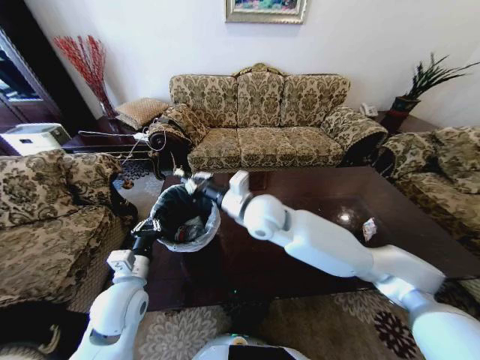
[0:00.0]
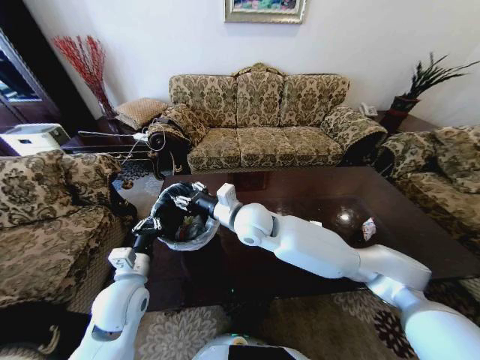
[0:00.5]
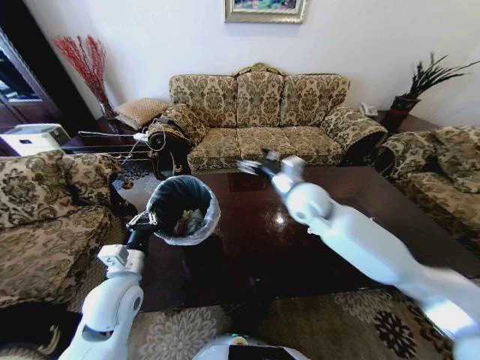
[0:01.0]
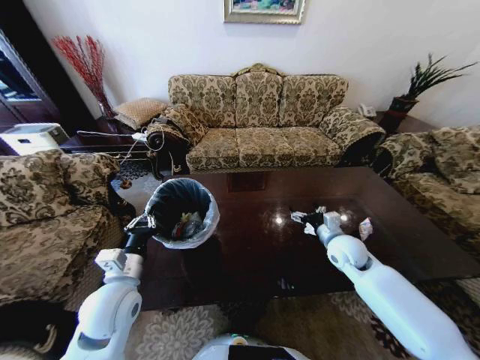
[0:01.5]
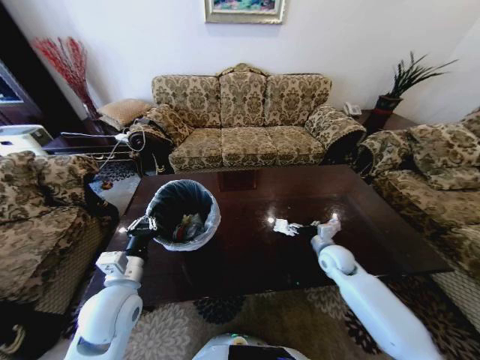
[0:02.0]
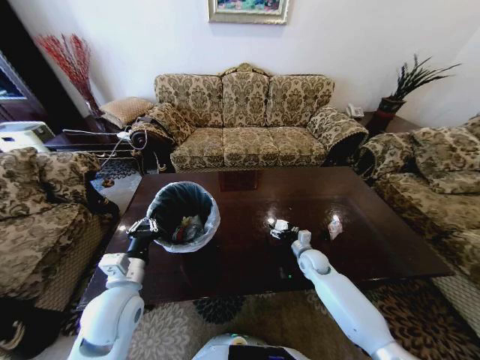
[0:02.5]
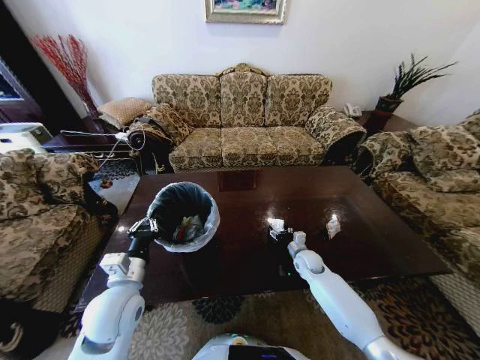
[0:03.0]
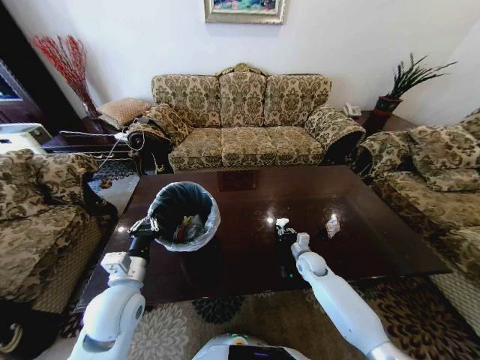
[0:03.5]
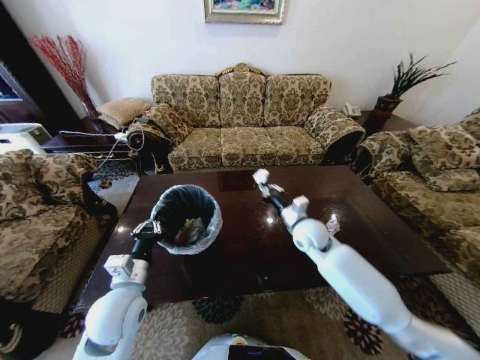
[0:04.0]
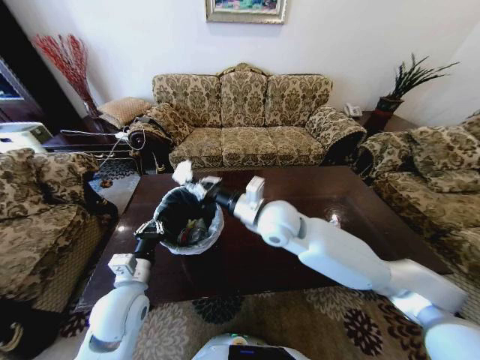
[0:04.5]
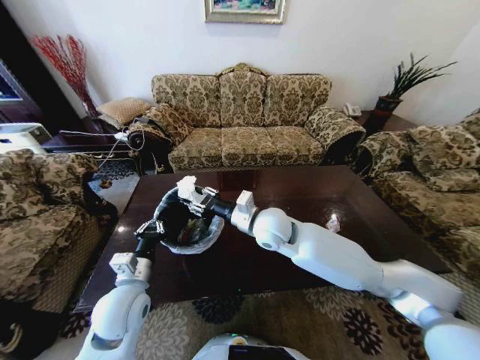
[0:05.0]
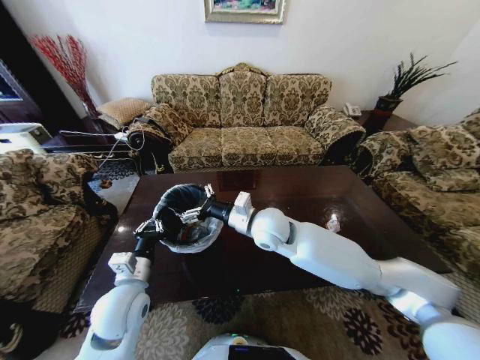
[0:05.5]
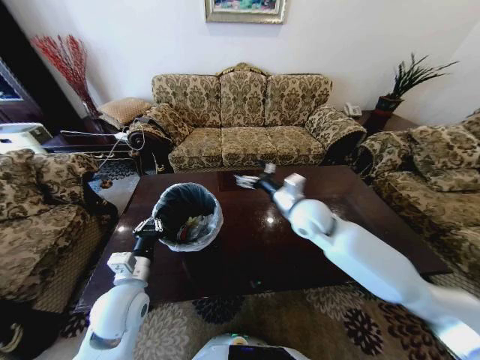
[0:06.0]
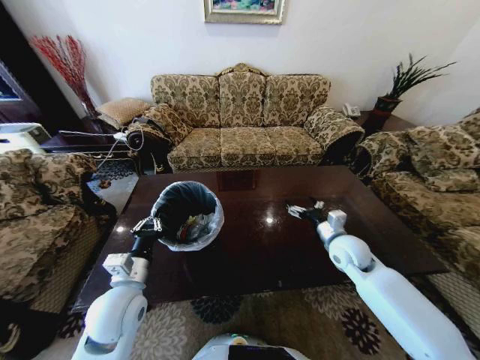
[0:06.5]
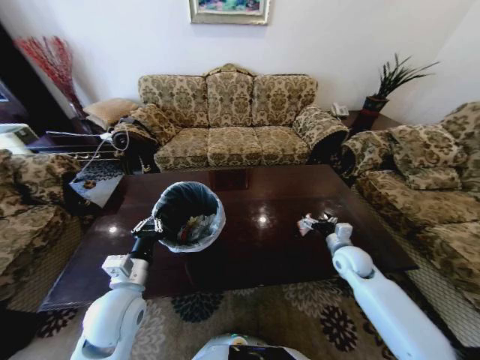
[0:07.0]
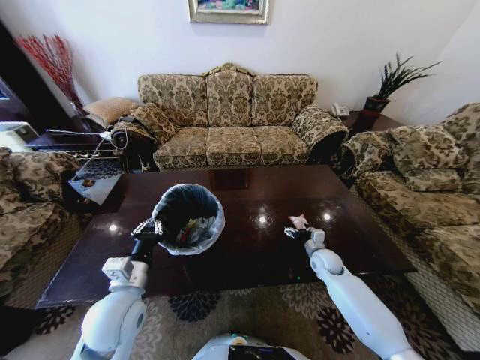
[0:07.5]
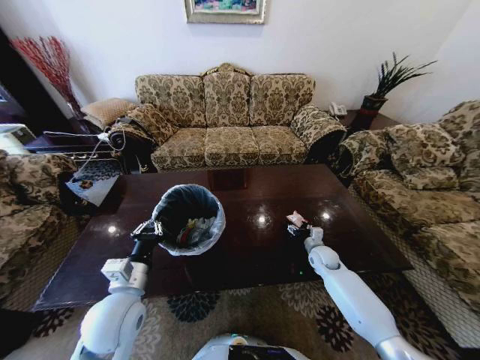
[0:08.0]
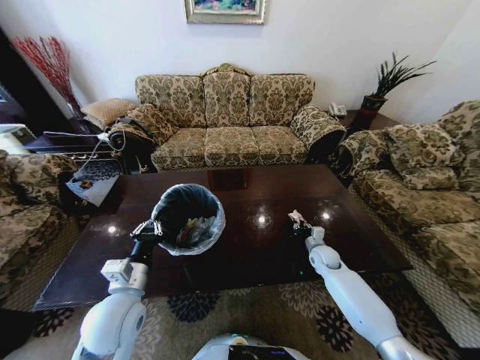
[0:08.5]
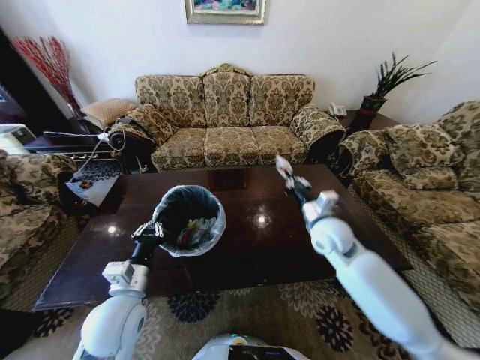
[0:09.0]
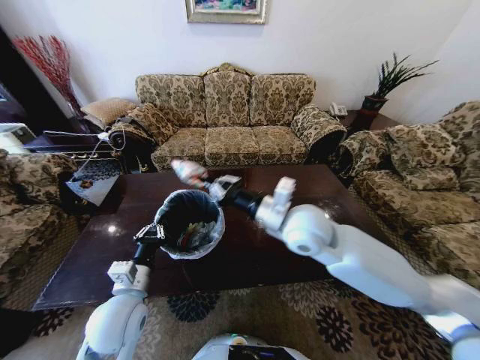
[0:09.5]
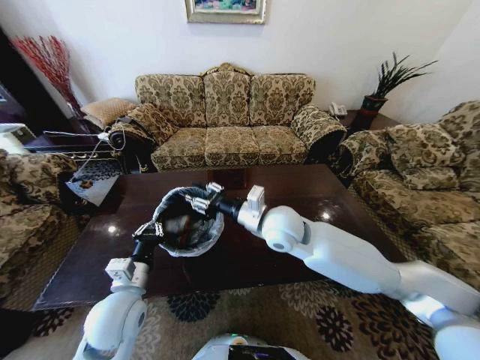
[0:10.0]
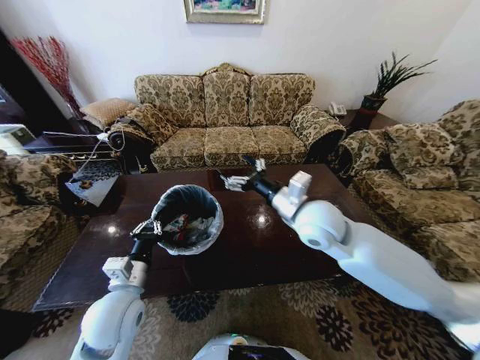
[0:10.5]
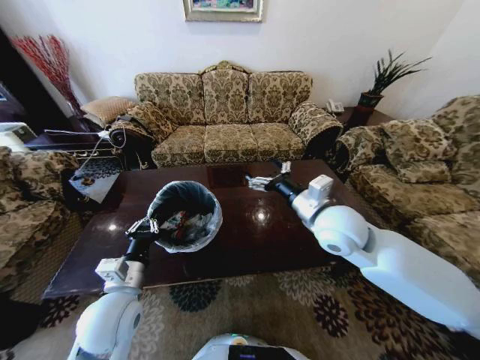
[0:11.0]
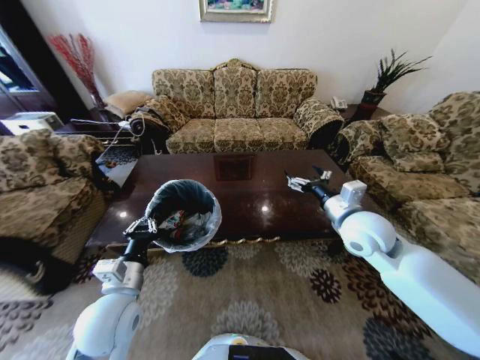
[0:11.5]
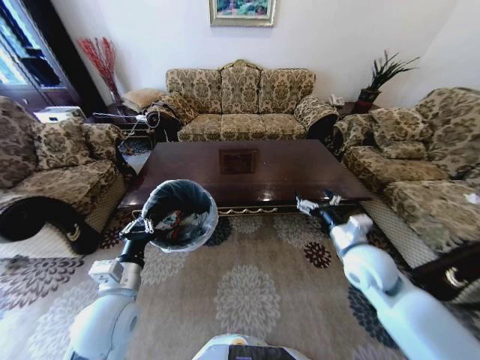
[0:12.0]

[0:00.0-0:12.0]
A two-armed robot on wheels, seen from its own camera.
Task of the whole recording: Move to the front of the table and place the trash on the table into the trash bin.
0:00.0 to 0:02.0: The right gripper is displaced to the right and downward by roughly 35 cm, and opens.
0:02.0 to 0:04.0: The right gripper travels to the left and upward by about 15 cm, and closes its fingers.
0:04.0 to 0:06.0: The right gripper moves upward, about 10 cm, goes to the left and returns, about 15 cm each way, and opens its fingers.
0:06.0 to 0:08.0: The right gripper is displaced downward and to the right by some 30 cm.
0:08.0 to 0:10.0: The right gripper is displaced upward and to the left by some 35 cm, and closes.
0:10.0 to 0:12.0: The right gripper is displaced to the right and downward by about 25 cm, and opens its fingers.

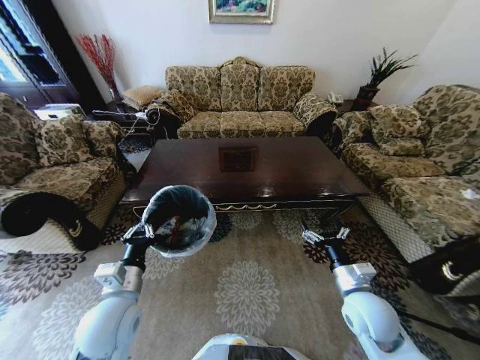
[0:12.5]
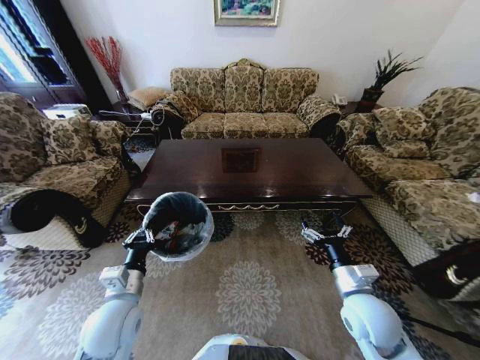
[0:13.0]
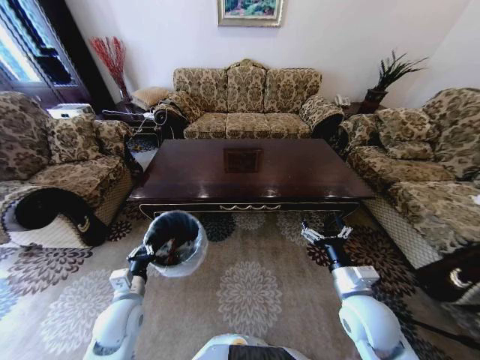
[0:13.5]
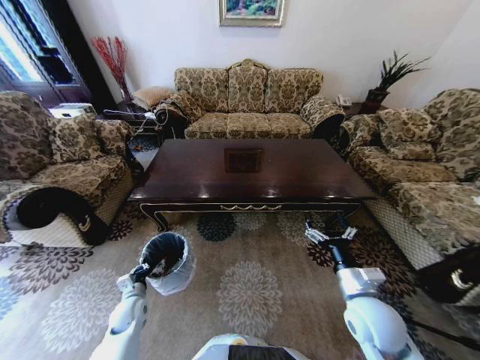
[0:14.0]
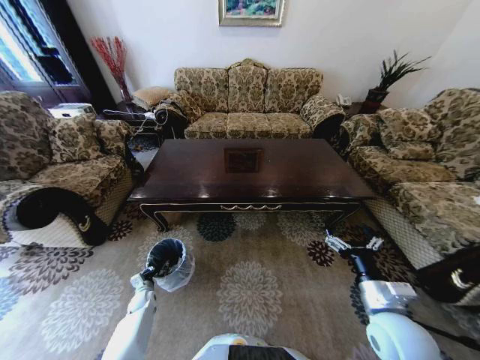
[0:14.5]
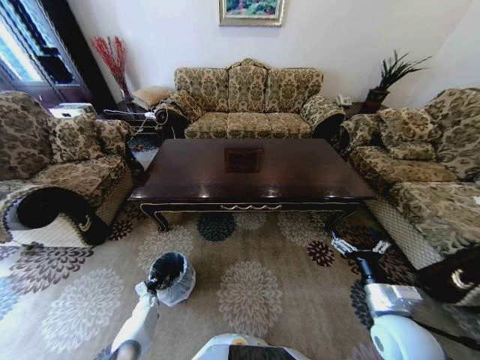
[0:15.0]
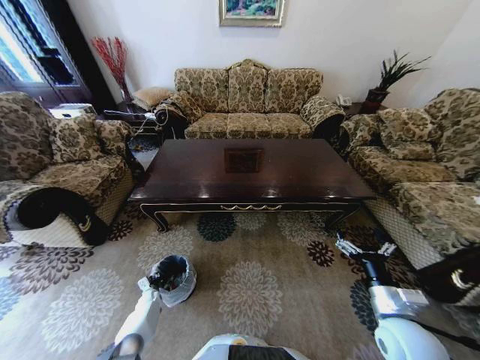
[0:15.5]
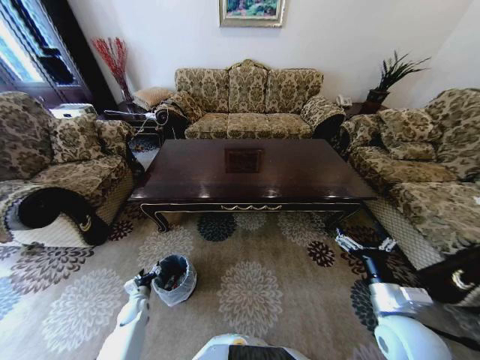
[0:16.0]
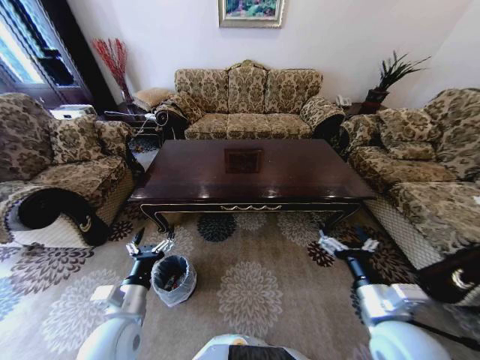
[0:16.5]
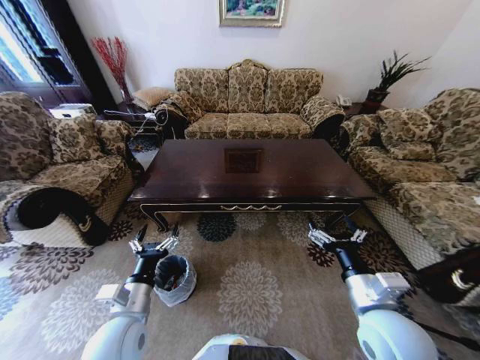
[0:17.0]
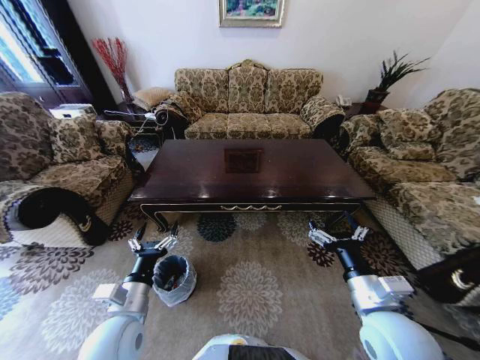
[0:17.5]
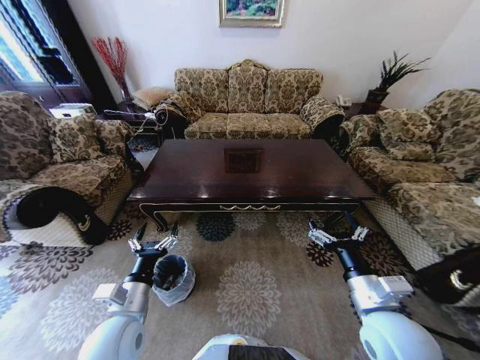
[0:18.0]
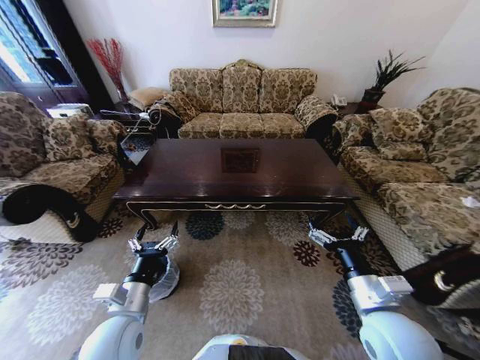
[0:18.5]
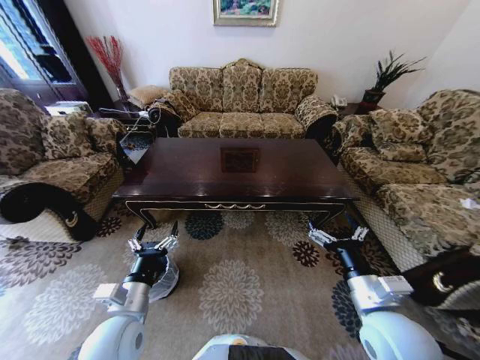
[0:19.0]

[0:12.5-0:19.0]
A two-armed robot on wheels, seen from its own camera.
Task of the whole recording: Move to the front of the table and place the trash on the table into the trash bin.
0:12.5 to 0:14.5: The left gripper heads downward, covering roughly 35 cm. Meanwhile the right gripper ends up some 5 cm from where it was.
0:14.5 to 0:17.0: The right gripper goes some 10 cm upward and to the left; the left gripper is displaced upward, to the right and backward by some 40 cm, and opens.
